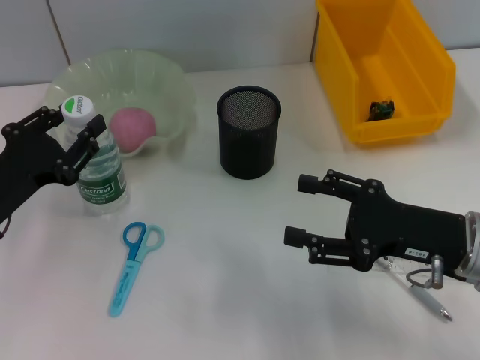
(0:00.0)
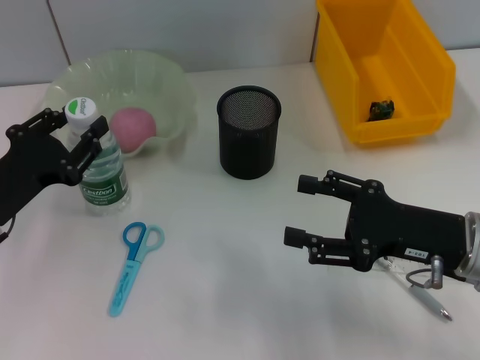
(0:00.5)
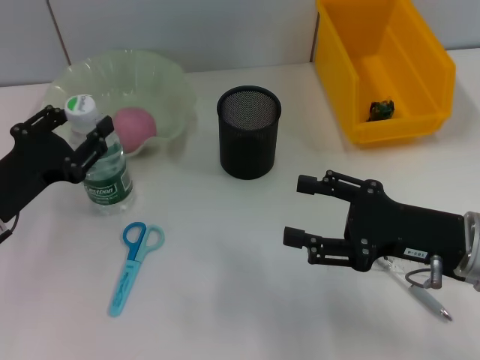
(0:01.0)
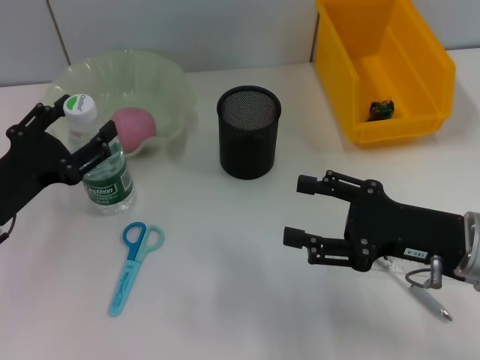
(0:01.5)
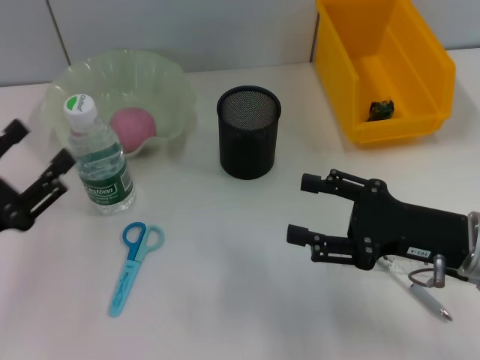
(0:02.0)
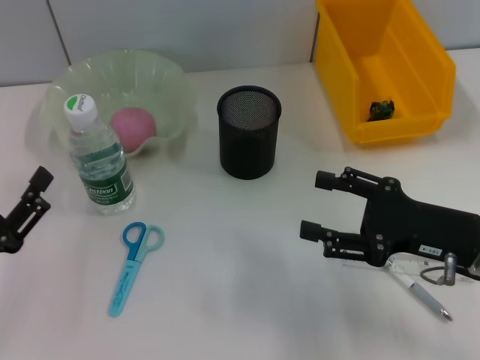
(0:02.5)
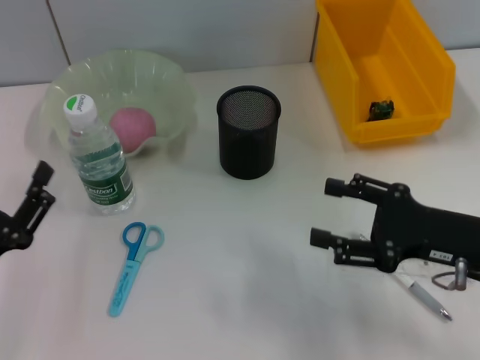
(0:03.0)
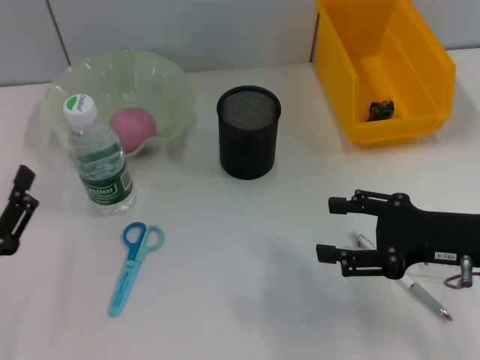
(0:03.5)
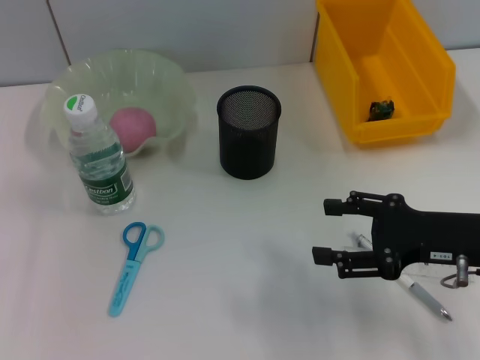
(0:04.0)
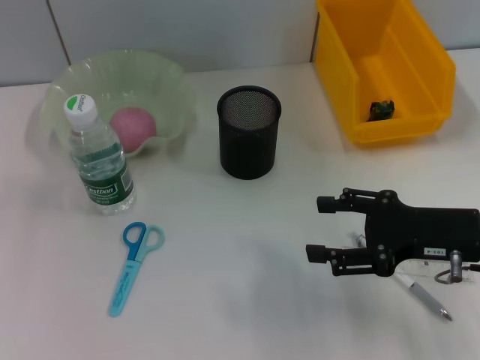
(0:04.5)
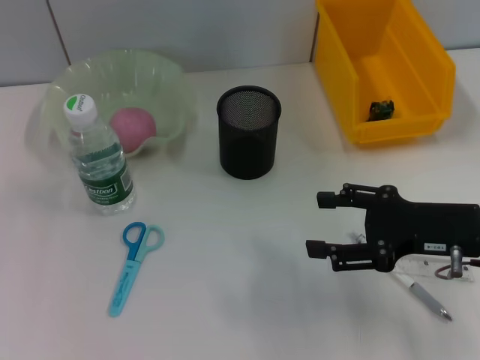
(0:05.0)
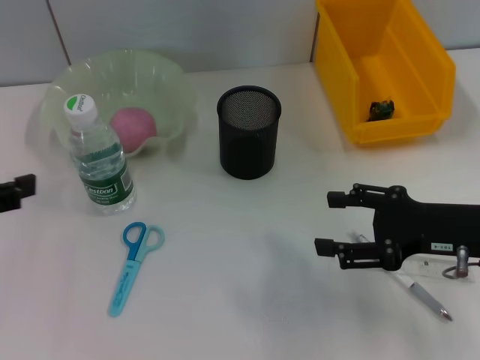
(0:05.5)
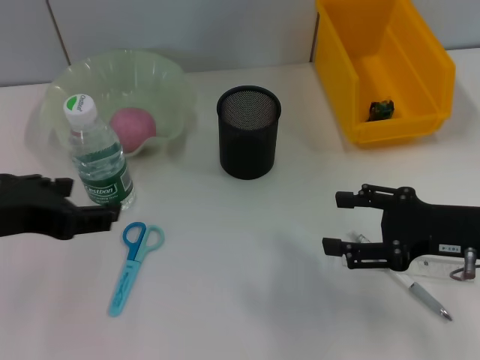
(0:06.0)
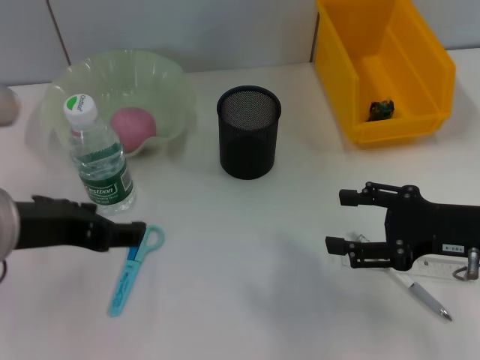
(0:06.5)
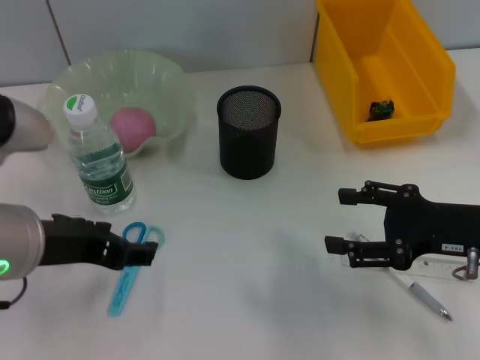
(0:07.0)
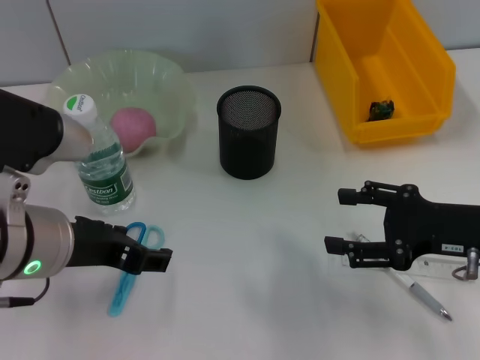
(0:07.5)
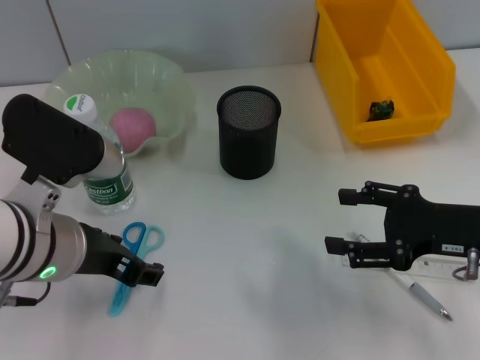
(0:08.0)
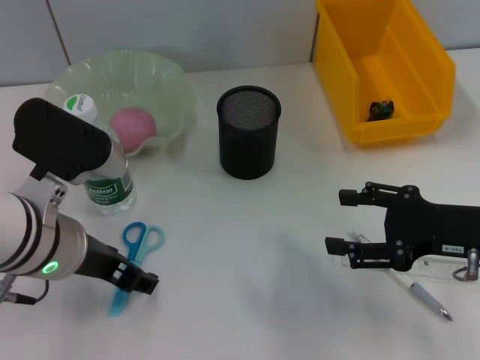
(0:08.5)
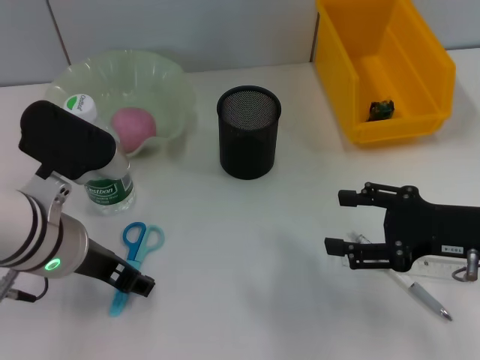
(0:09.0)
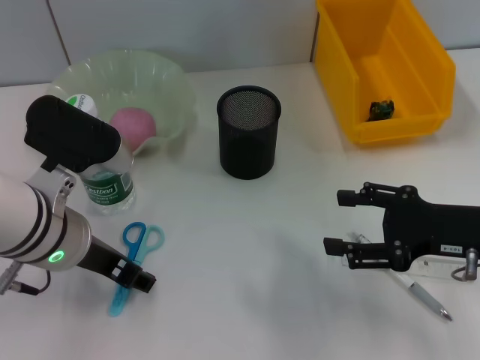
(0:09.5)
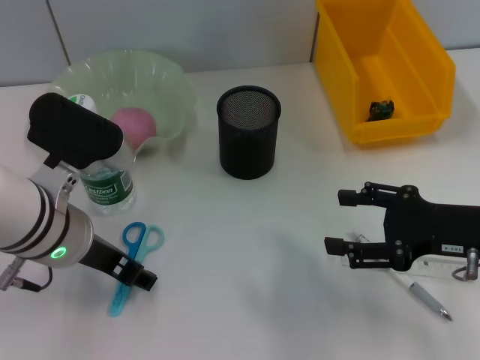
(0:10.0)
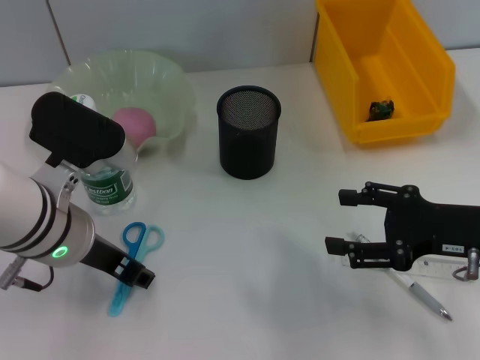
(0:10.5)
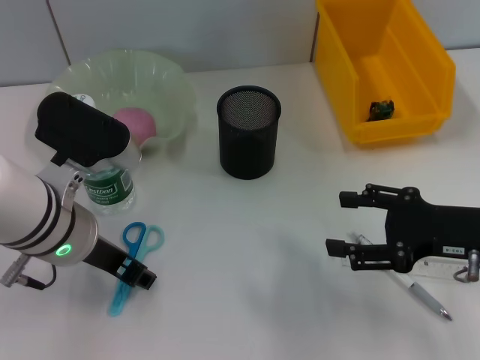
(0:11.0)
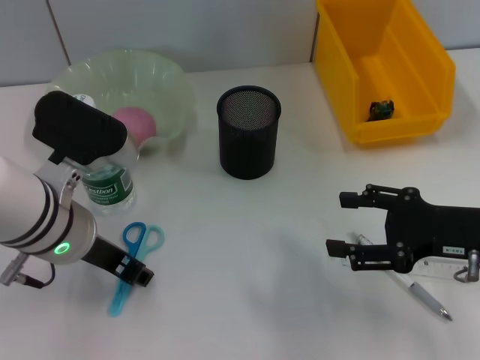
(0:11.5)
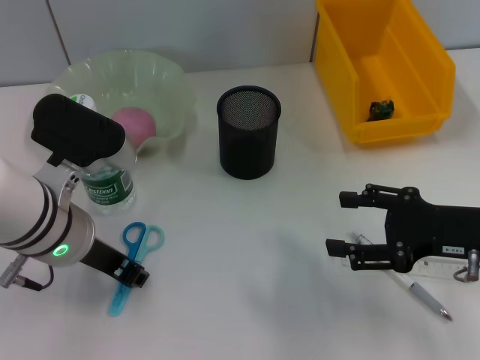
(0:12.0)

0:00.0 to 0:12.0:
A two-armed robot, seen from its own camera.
0:00.0 to 0:02.0: The left gripper travels backward by roughly 5 cm, and opens up.
0:04.0 to 0:06.0: The left gripper moves upward and to the right, some 20 cm.
0:06.0 to 0:08.0: The left gripper heads downward and to the right, covering some 10 cm.
0:08.0 to 0:10.0: The grippers stay close to where they were, moving slightly.
0:10.0 to 0:12.0: The left gripper closes its fingers.

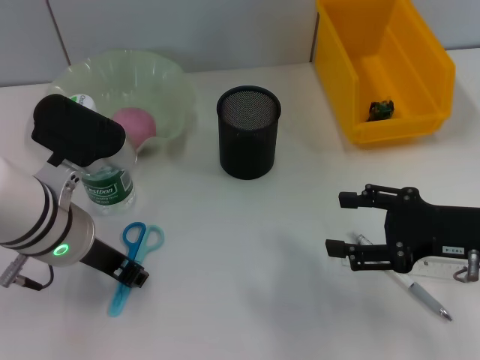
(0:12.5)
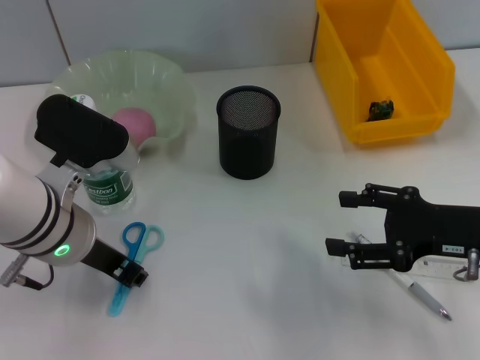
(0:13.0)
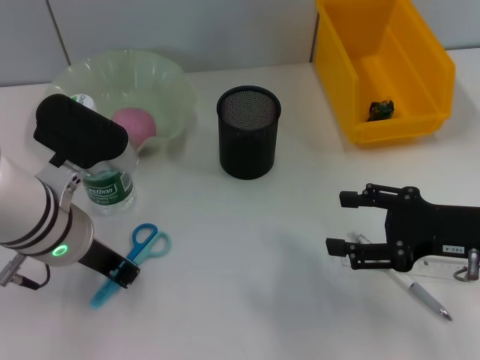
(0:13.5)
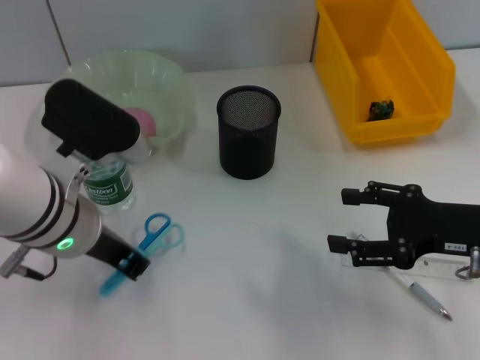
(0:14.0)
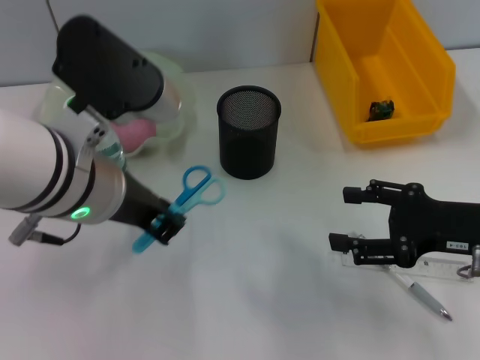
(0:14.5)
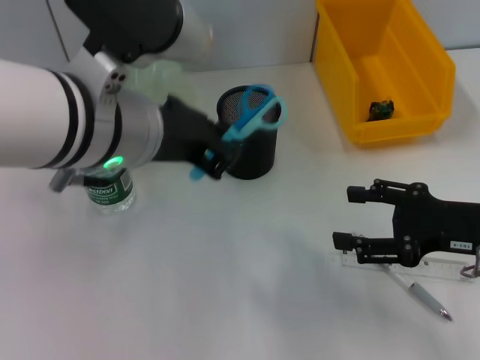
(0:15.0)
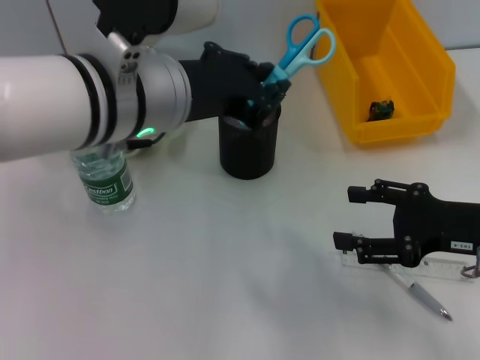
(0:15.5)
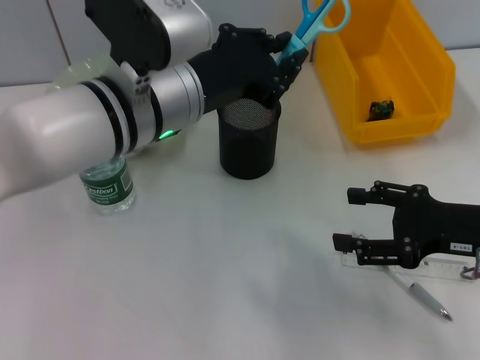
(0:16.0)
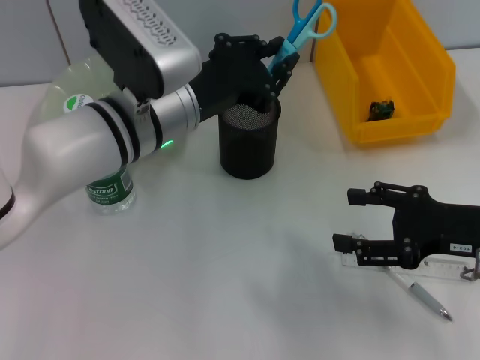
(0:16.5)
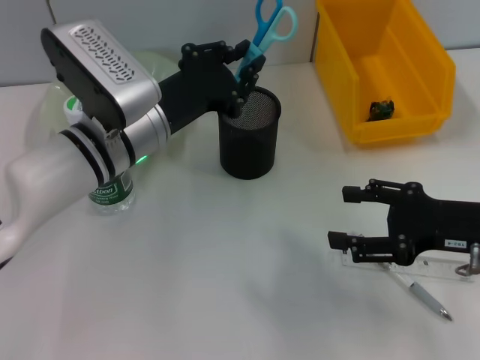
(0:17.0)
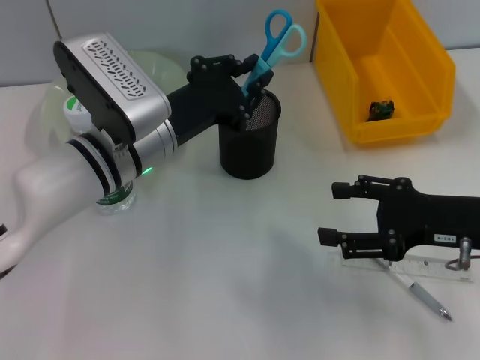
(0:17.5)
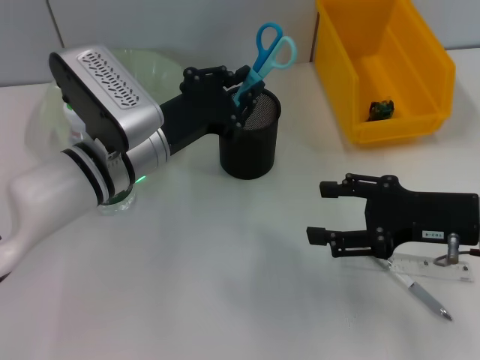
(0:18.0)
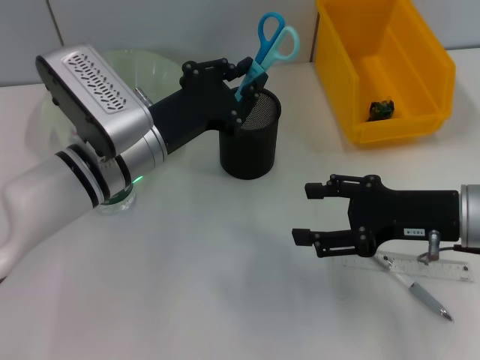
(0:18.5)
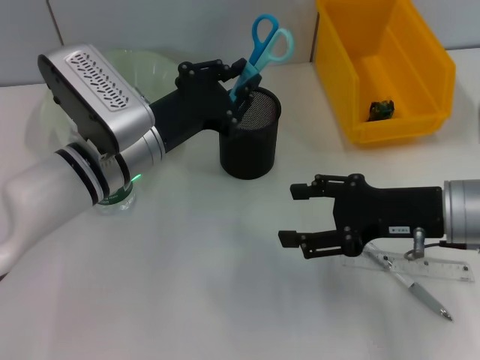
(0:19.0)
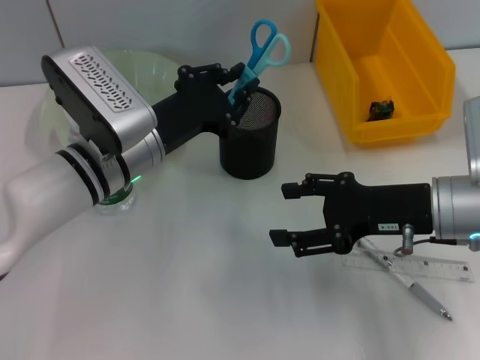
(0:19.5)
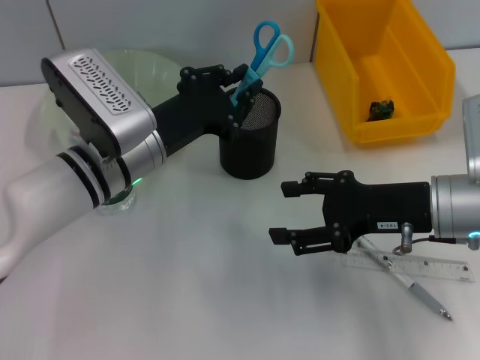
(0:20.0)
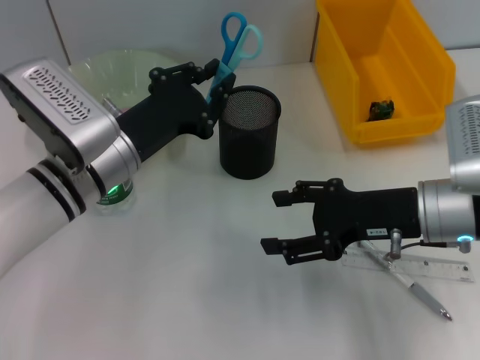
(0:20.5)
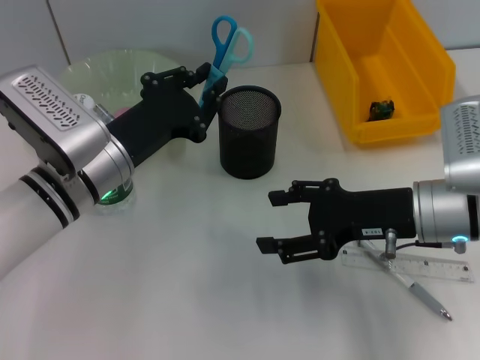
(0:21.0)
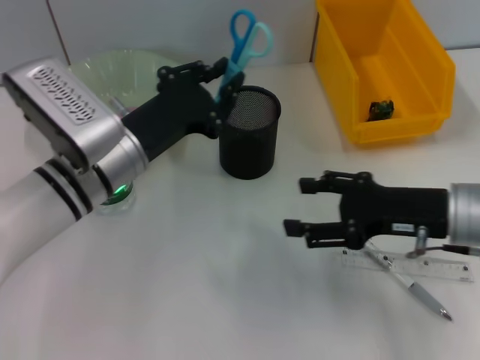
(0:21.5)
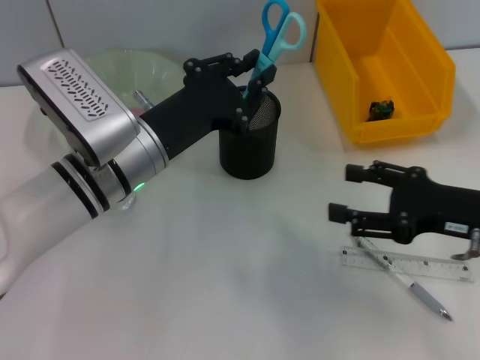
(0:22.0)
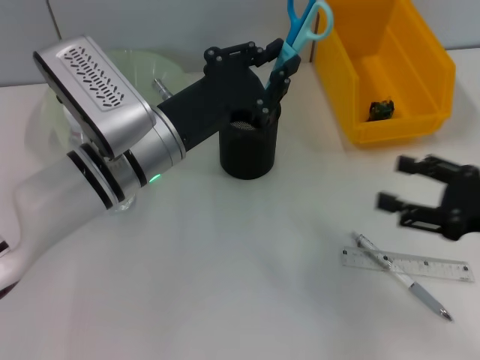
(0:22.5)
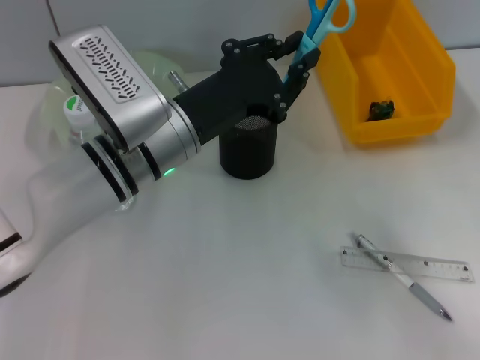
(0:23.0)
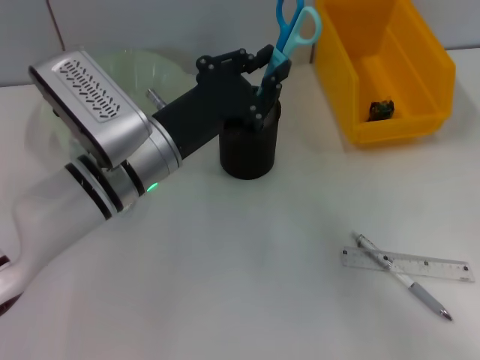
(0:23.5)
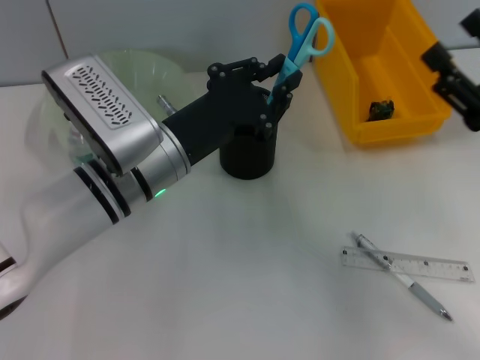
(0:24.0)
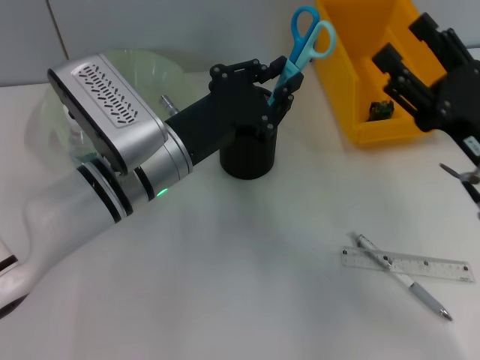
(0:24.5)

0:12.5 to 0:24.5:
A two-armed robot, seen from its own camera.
0:12.5 to 0:14.5: The left gripper moves upward, some 5 cm.
0:14.5 to 0:16.5: The left gripper moves forward and downward, approximately 10 cm.
0:16.5 to 0:18.5: The left gripper changes place by roughly 5 cm.
0:18.5 to 0:20.5: There are only small adjustments of the grippers.
0:20.5 to 0:22.5: The right gripper moves to the right and backward, approximately 10 cm.
0:22.5 to 0:24.5: The right gripper heads to the left, covering roughly 5 cm.

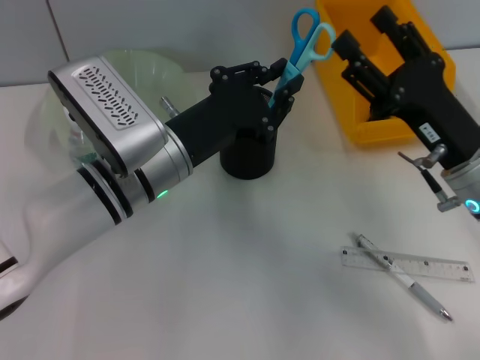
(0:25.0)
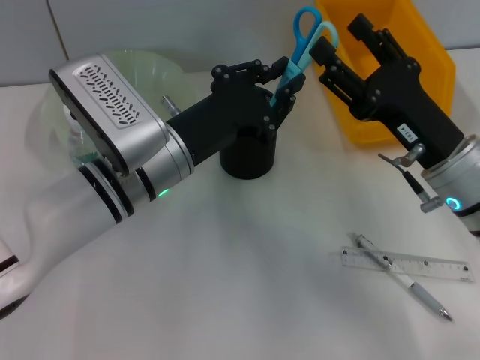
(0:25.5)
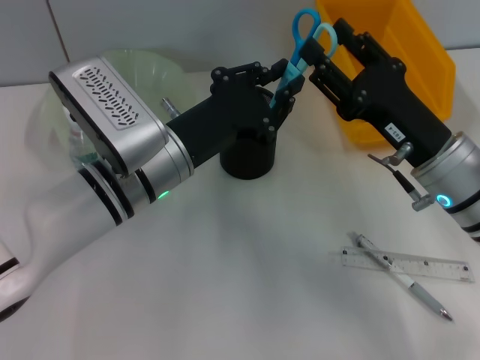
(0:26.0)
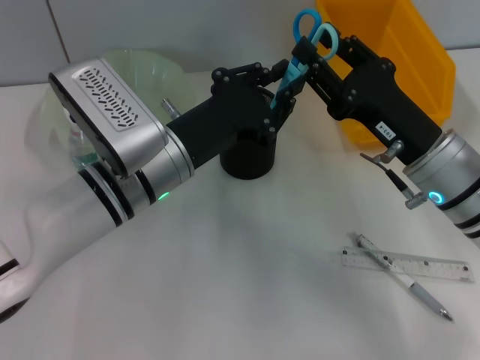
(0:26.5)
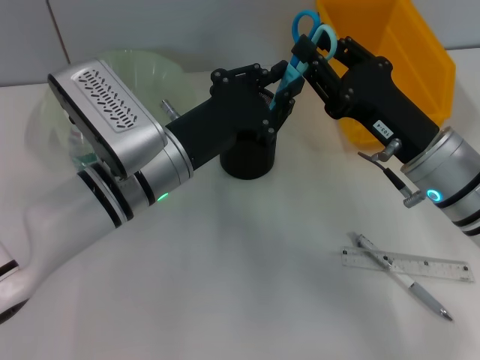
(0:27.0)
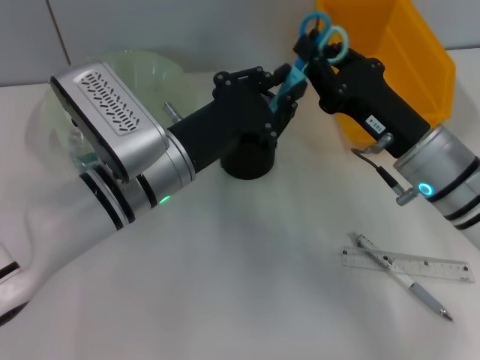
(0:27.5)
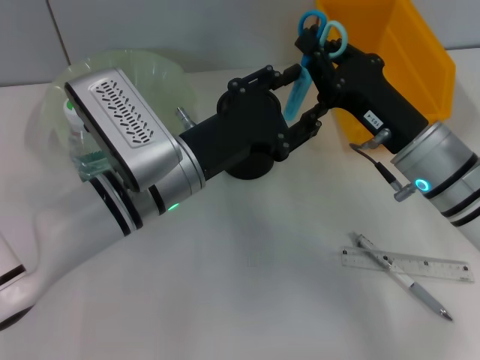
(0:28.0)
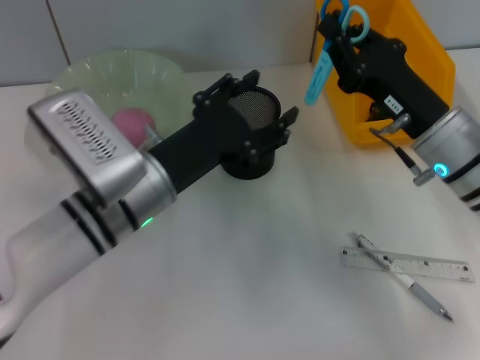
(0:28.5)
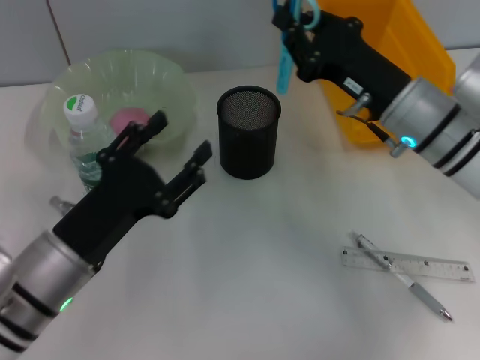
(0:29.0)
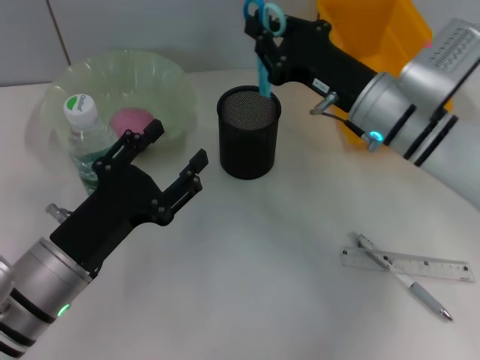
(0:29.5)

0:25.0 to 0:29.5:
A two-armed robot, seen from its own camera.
Step, 0:25.0 to 0:28.0: Pass the blue scissors from the left hand to the right hand.
0:25.0 to 0:27.0: The right gripper closes.
0:27.0 to 0:29.5: The left gripper moves to the left and backward, approximately 15 cm, and opens up; the right gripper goes roughly 5 cm forward, and closes up.
